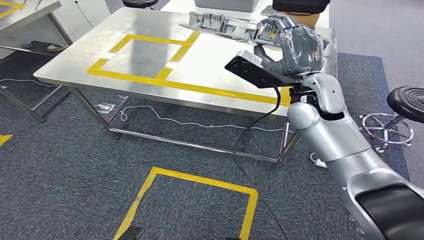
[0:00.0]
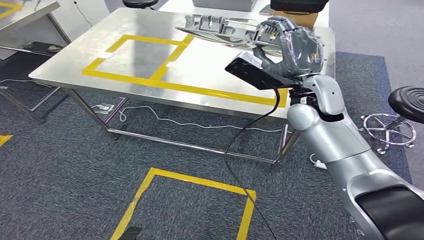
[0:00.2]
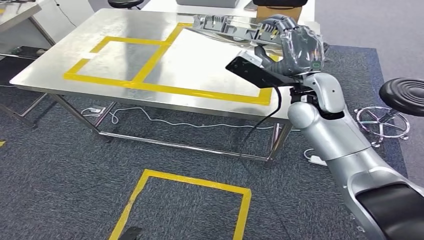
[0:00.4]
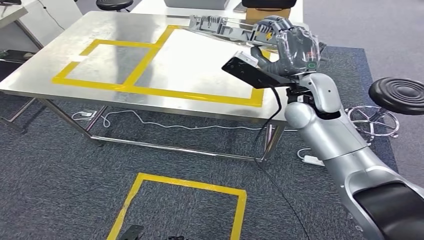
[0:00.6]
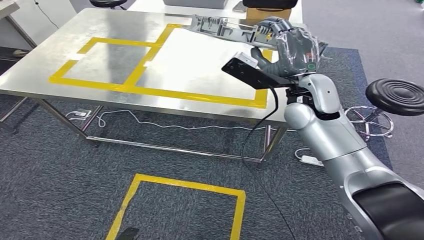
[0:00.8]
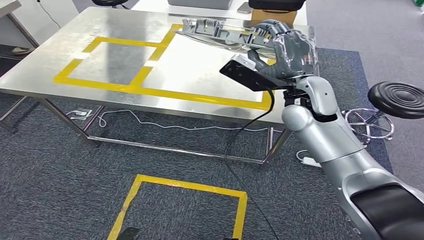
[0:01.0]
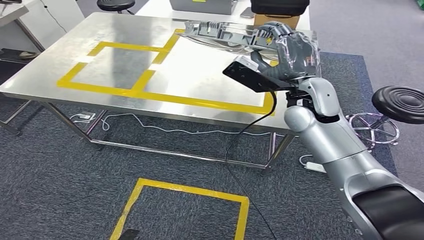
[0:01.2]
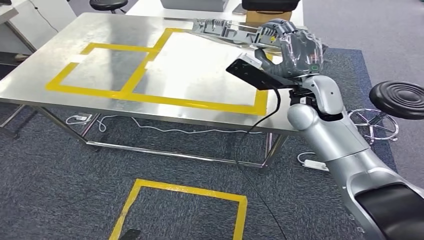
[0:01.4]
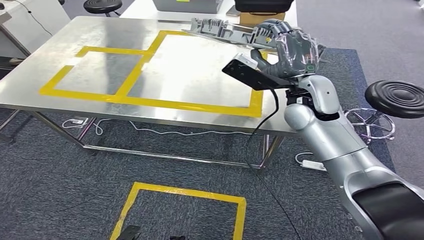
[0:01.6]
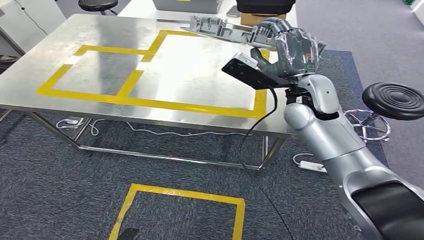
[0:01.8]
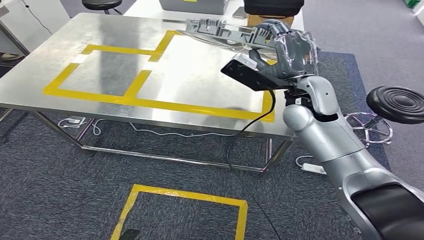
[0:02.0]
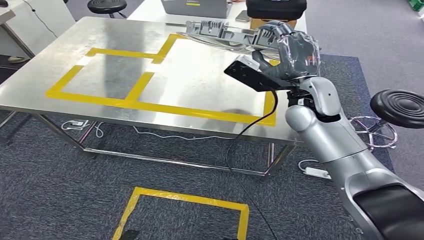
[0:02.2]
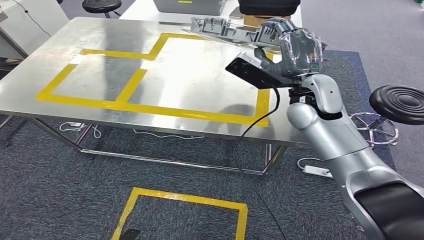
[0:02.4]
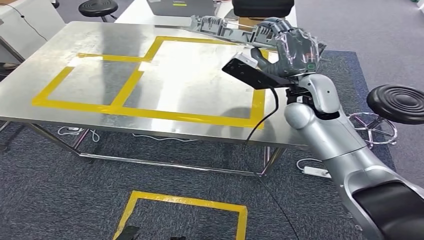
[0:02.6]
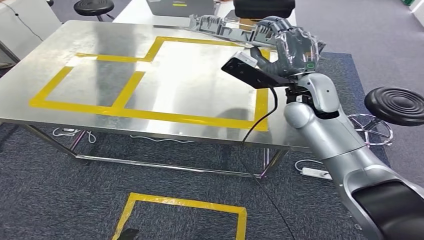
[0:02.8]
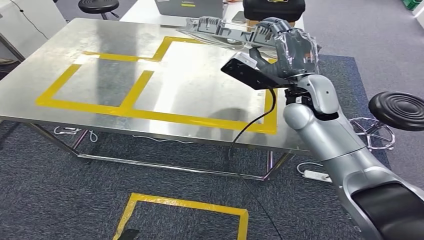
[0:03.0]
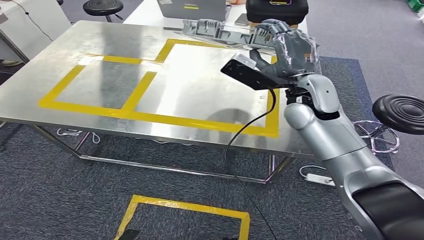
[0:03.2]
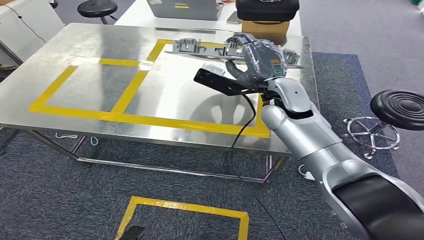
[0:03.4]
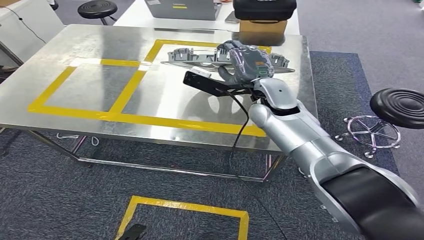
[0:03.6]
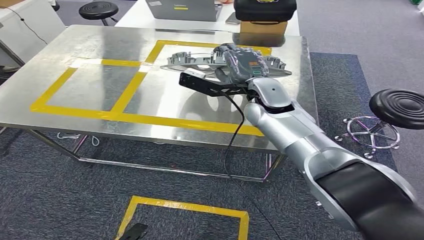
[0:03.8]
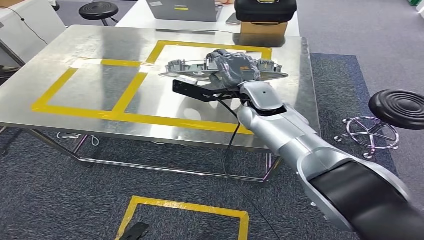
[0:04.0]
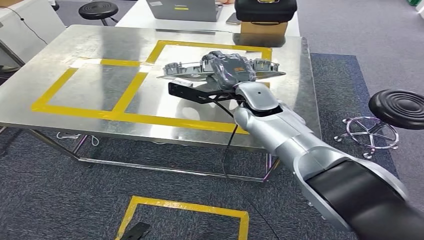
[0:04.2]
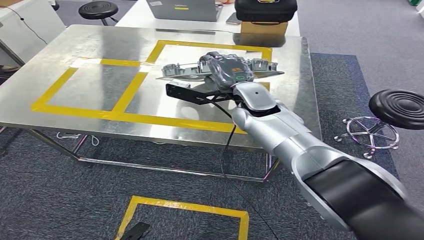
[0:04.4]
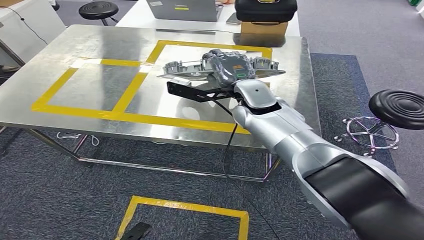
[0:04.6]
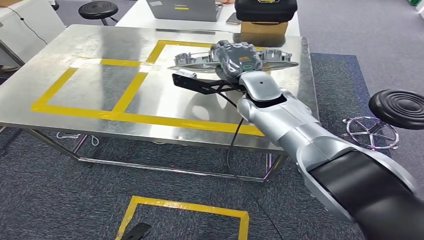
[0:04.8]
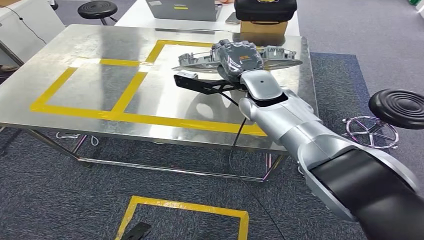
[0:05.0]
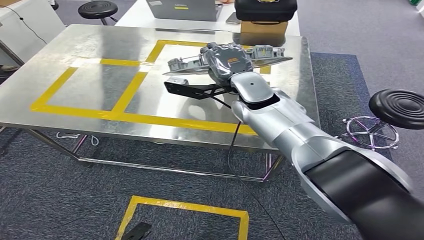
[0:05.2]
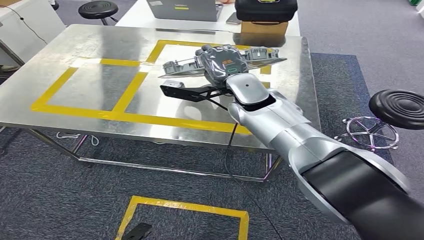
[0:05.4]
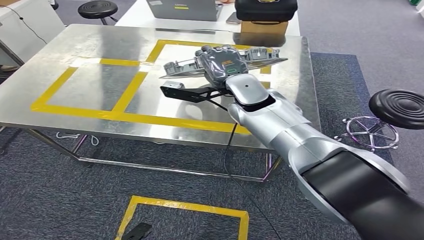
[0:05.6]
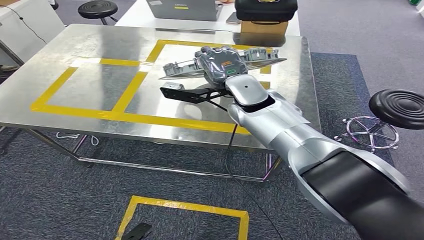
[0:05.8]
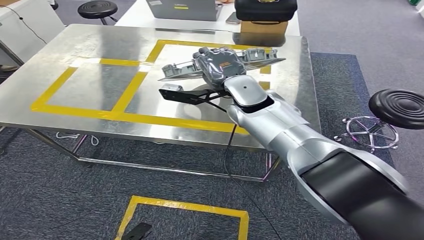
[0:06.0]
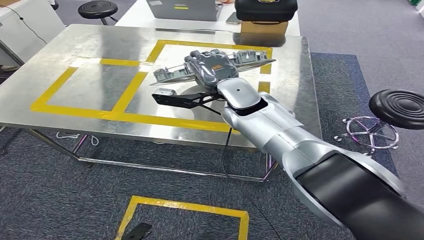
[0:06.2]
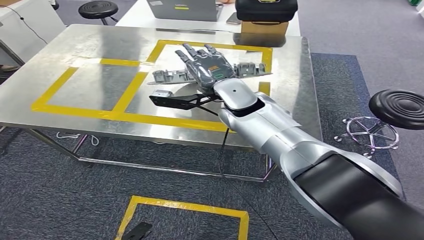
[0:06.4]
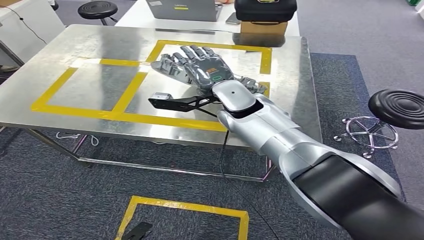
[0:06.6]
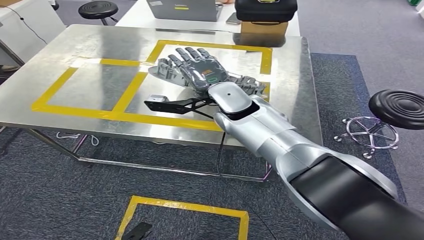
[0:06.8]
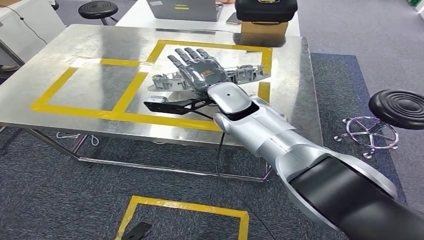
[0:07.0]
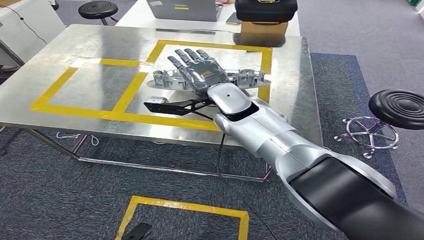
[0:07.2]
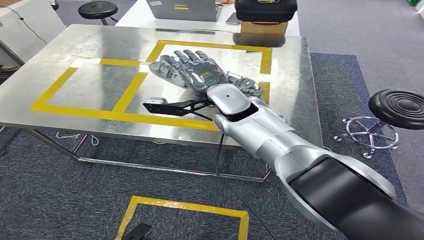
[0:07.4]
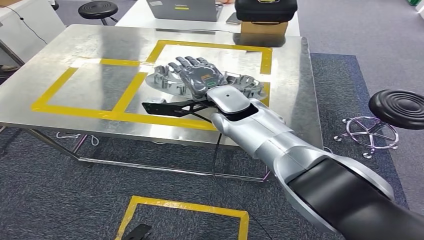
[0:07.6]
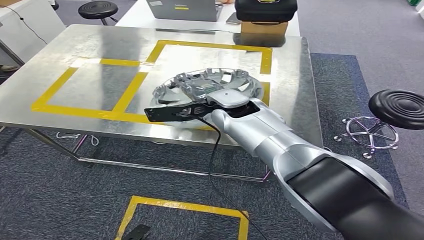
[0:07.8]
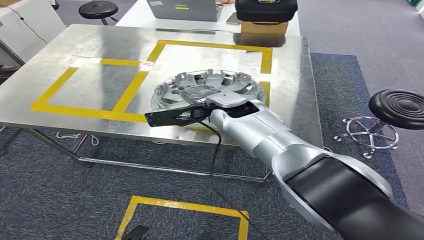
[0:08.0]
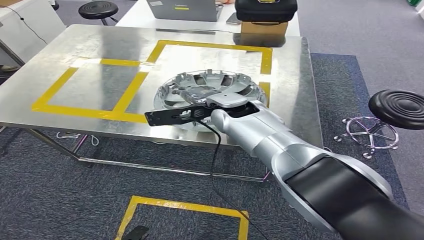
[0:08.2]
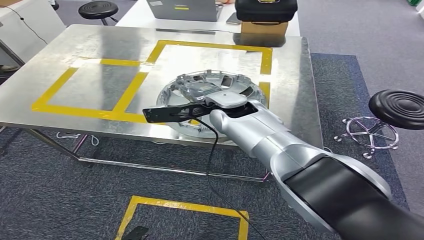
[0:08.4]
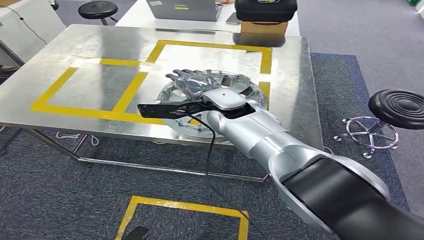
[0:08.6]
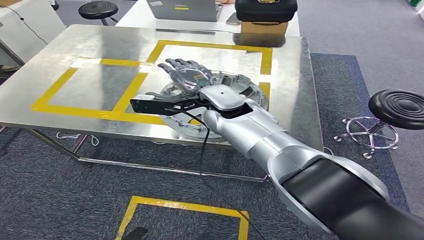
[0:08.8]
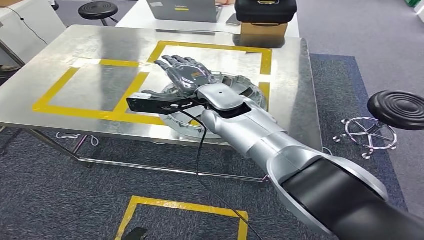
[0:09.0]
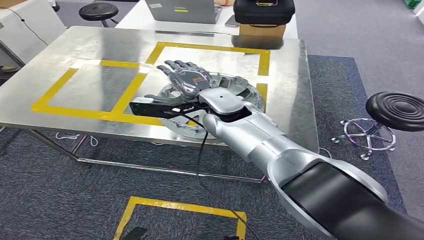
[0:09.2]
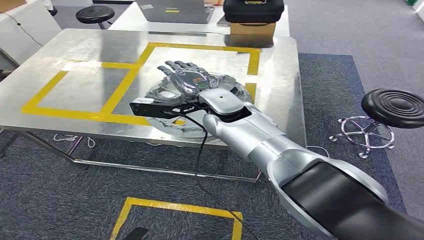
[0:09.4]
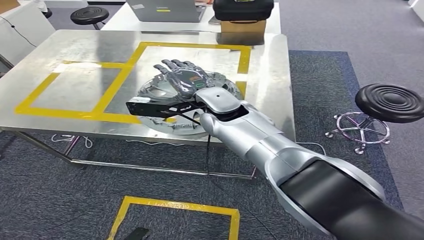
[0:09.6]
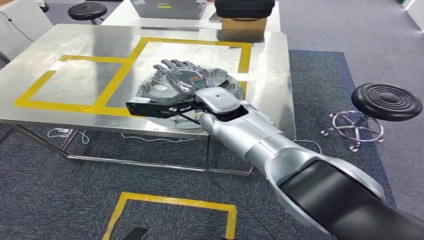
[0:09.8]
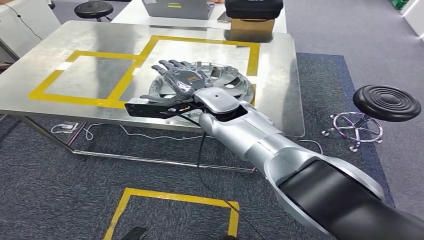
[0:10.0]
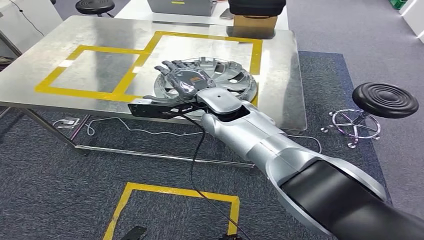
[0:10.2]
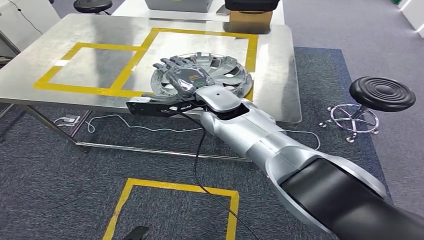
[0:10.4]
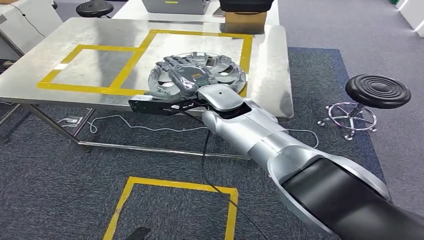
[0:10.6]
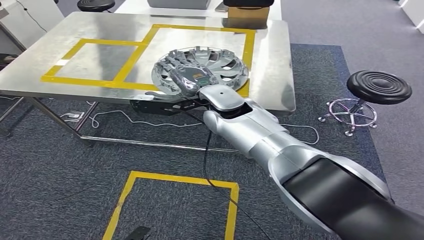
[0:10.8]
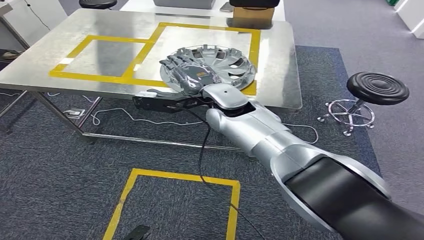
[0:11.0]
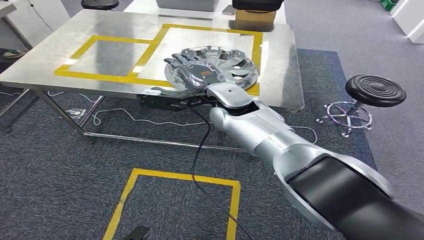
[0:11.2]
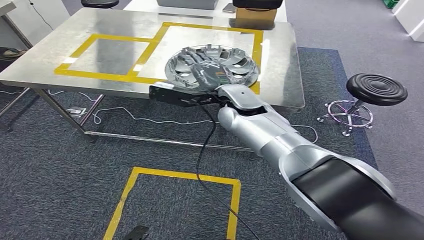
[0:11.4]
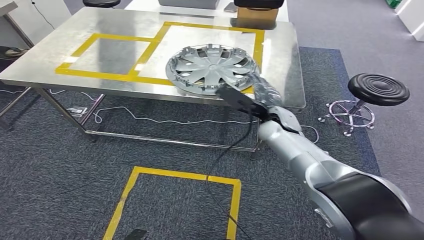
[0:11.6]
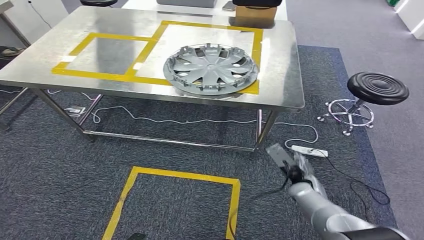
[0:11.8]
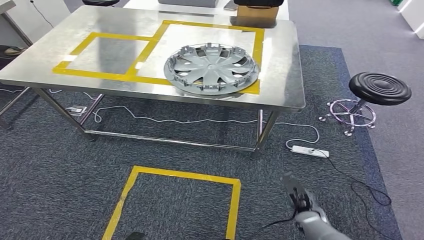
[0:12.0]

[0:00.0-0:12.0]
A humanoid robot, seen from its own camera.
0:04.4 to 0:07.6: The hands stay close to where they were, moving slightly.

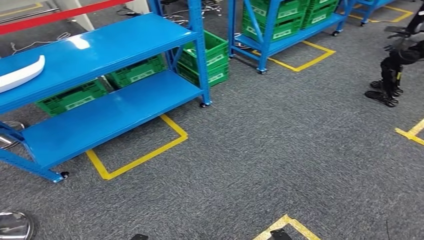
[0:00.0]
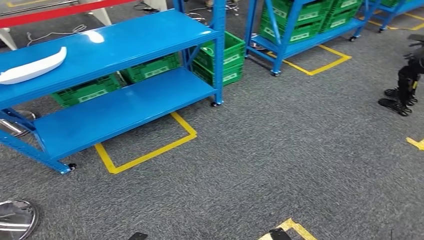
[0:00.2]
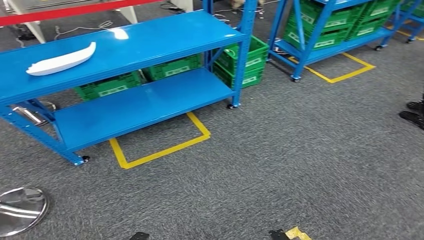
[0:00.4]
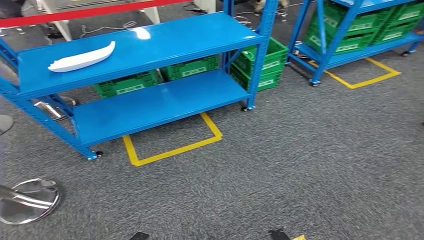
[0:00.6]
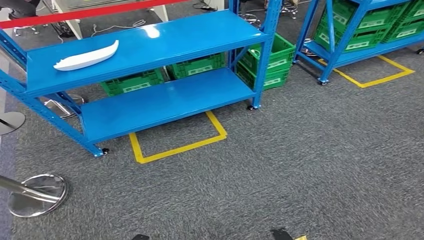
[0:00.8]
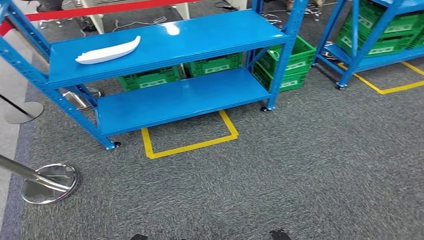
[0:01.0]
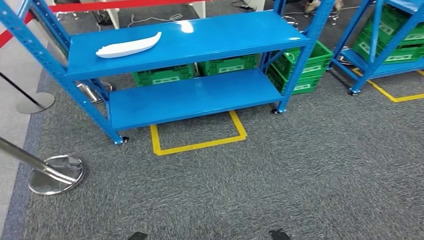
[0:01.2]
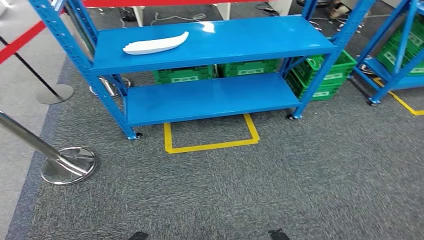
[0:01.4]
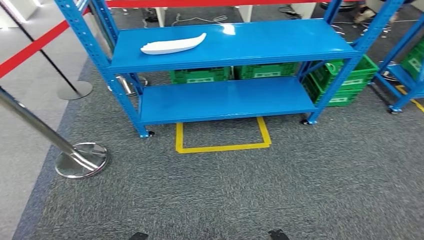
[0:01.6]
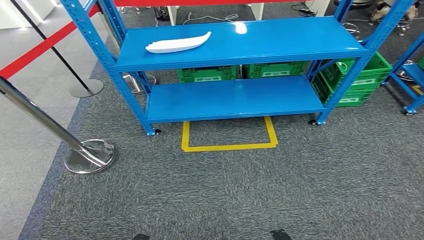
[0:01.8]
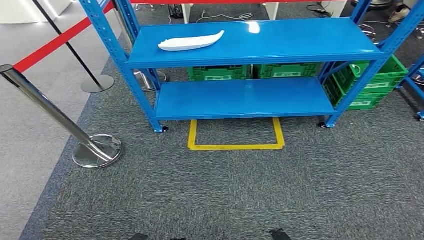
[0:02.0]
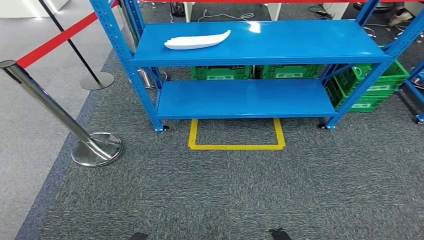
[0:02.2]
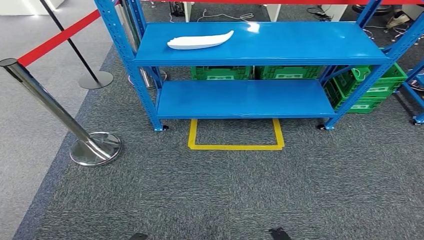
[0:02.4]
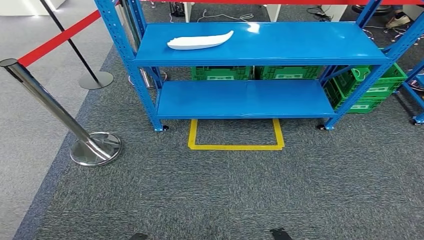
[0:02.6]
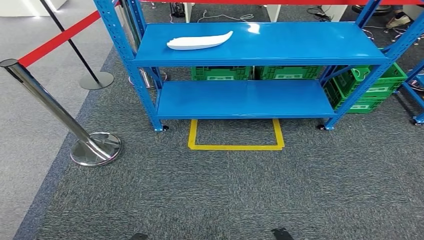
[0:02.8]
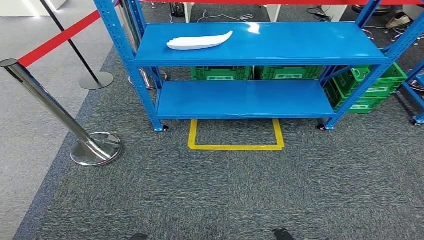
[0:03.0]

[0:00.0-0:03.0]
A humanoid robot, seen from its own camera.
Step, 0:00.0 to 0:03.0: Move to the initial position of the workbench.
